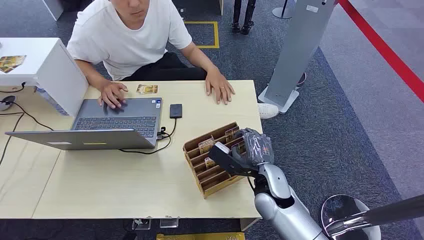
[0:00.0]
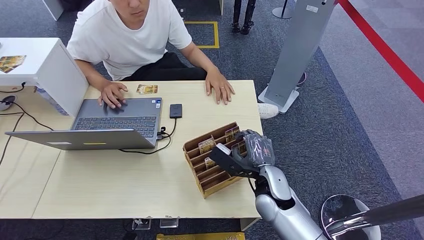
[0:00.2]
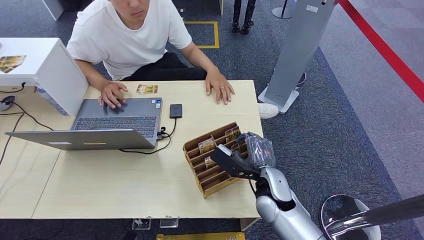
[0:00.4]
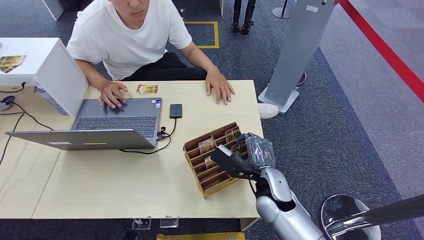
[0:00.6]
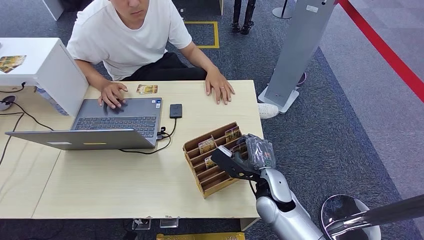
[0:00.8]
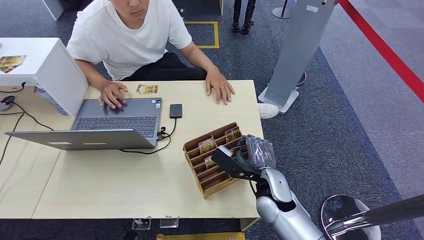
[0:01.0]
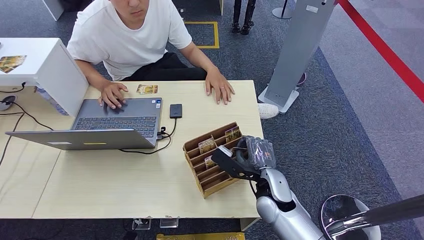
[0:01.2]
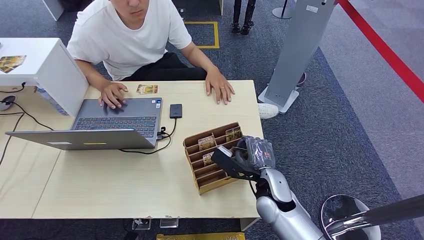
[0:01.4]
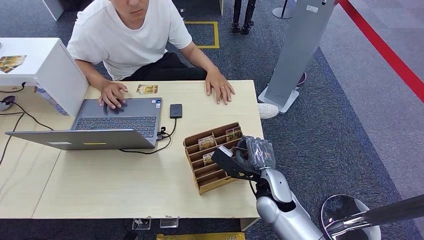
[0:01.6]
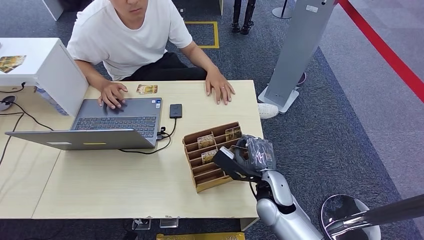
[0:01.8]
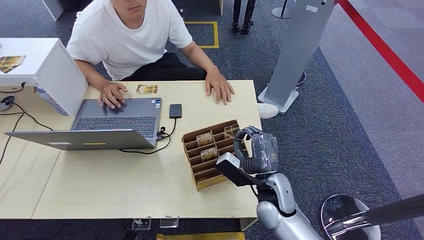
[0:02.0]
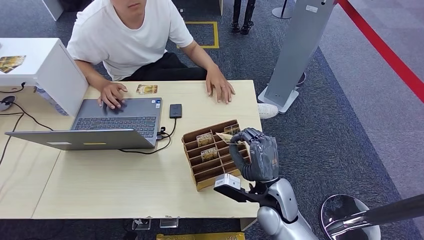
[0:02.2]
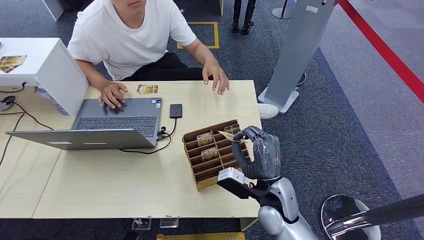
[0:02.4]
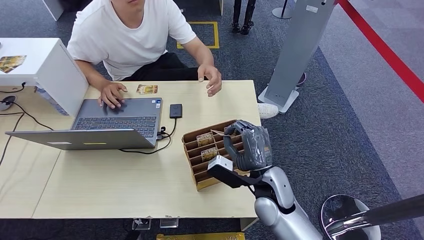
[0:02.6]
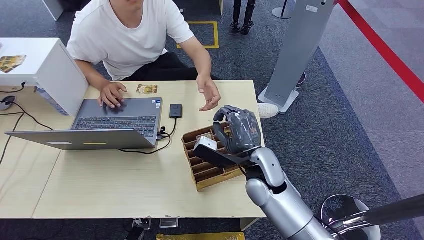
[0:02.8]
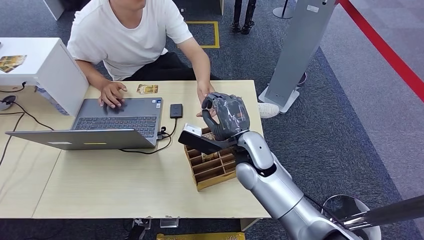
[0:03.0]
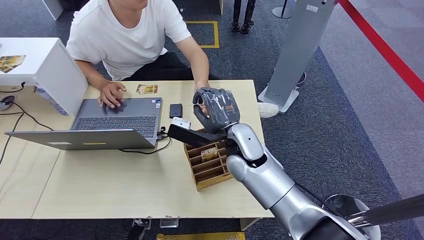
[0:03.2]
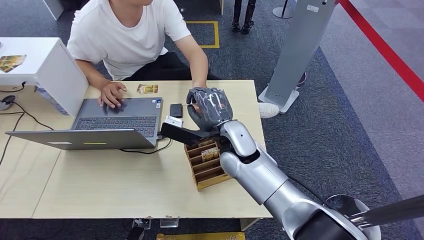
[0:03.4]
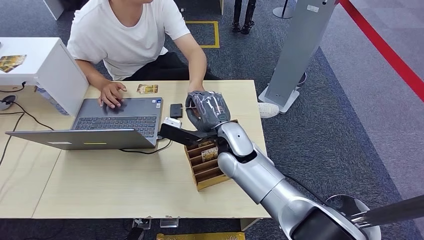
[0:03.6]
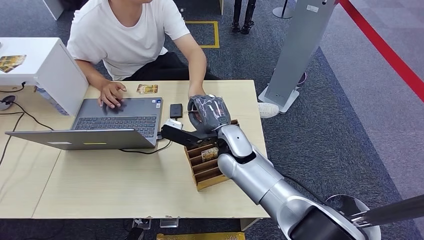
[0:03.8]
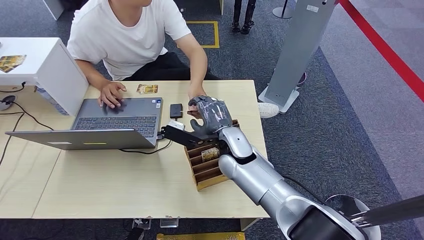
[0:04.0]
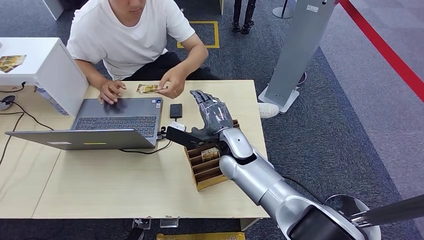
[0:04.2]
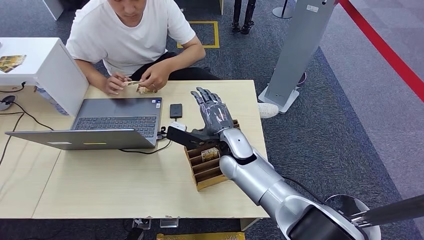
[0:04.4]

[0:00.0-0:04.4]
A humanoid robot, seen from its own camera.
Step, 0:00.0 to 0:01.6: Pick up the key card from the card box.
Step, 0:01.8 to 0:04.4: Hand the key card to the target.
0:01.4 to 0:03.0: The right hand shifts some 10 cm upward, to the left and forward.
0:03.0 to 0:04.4: The right hand shifts by roughly 5 cm.
